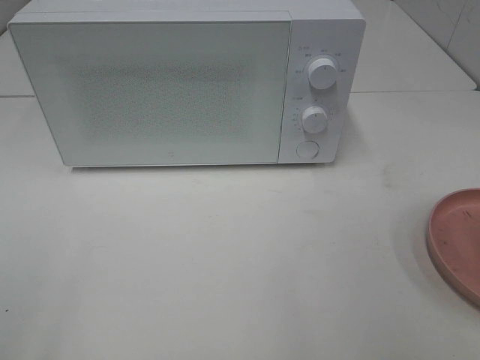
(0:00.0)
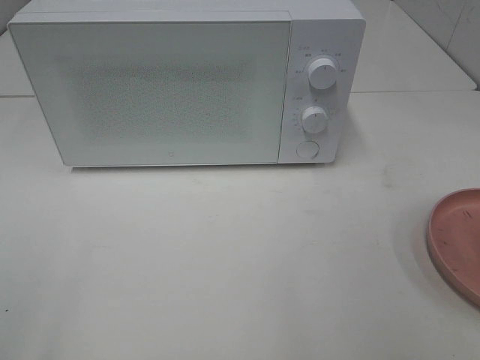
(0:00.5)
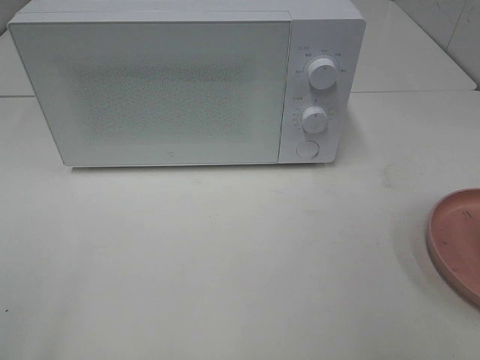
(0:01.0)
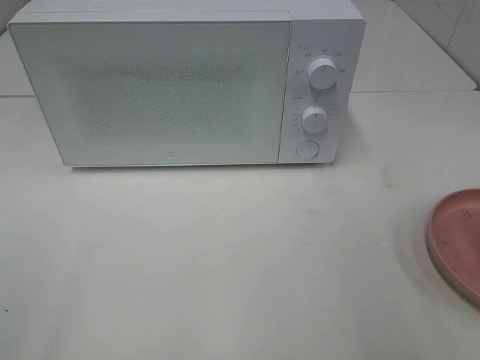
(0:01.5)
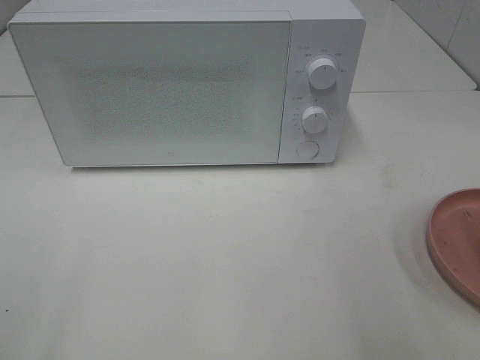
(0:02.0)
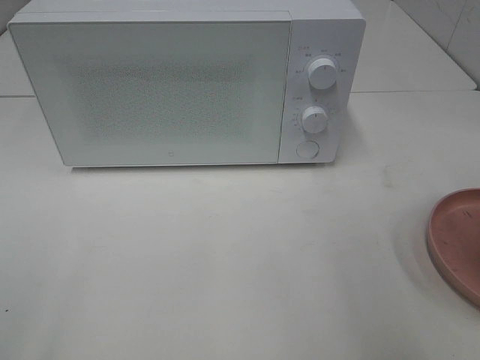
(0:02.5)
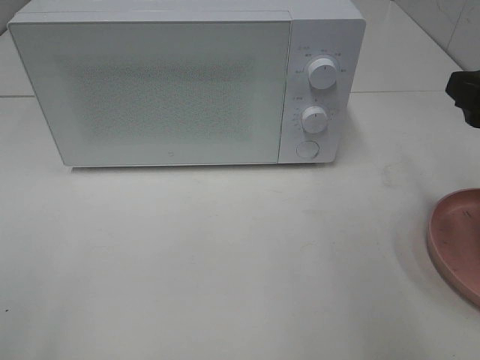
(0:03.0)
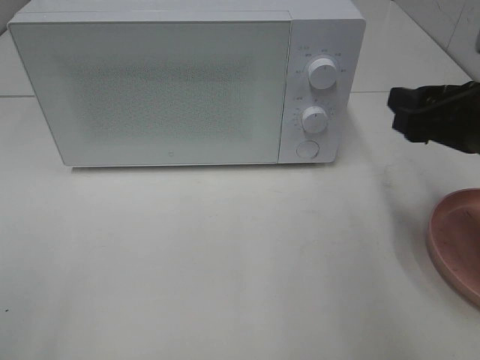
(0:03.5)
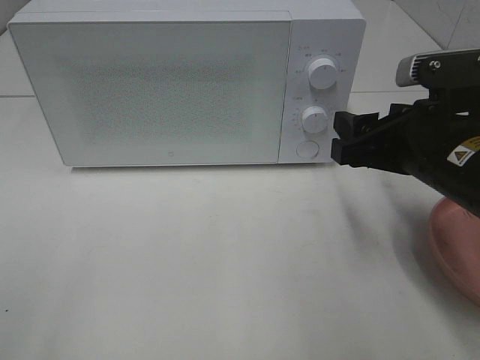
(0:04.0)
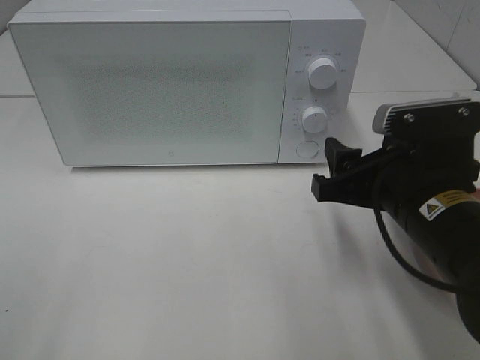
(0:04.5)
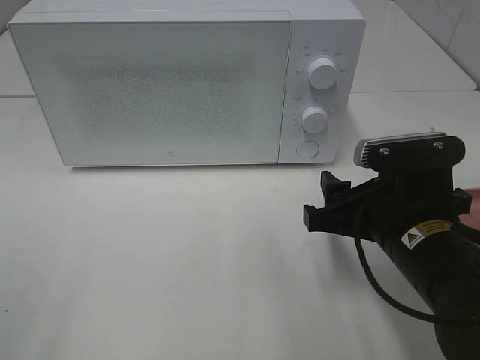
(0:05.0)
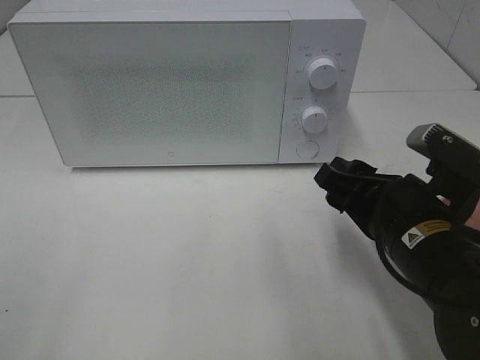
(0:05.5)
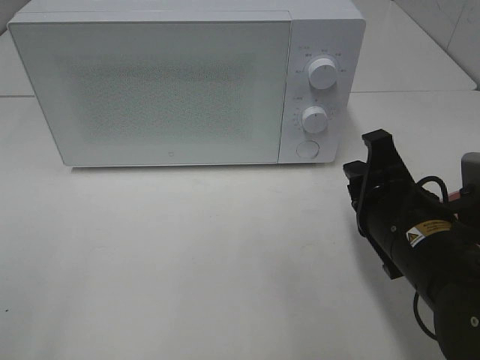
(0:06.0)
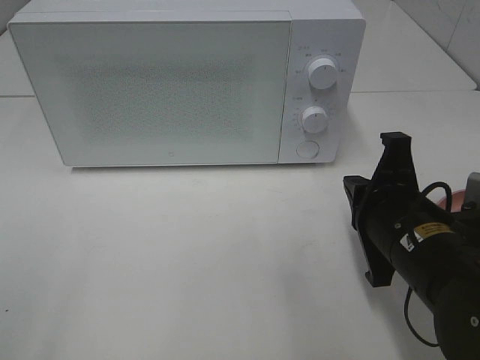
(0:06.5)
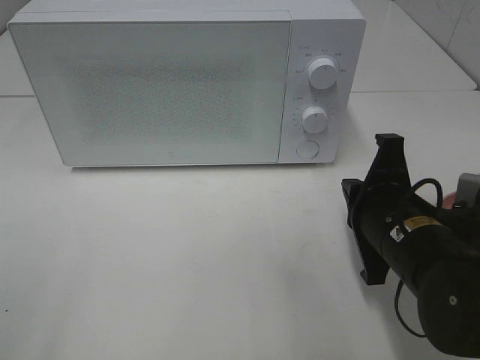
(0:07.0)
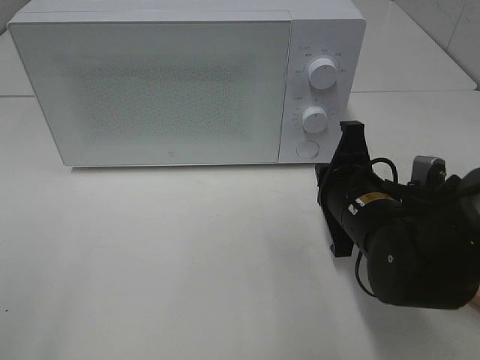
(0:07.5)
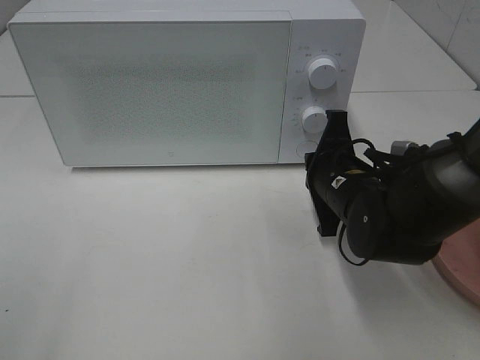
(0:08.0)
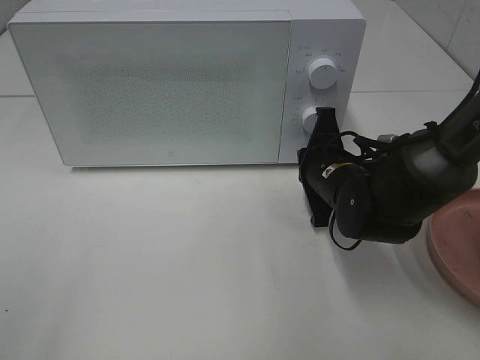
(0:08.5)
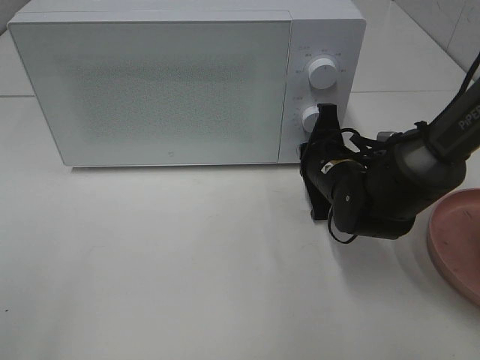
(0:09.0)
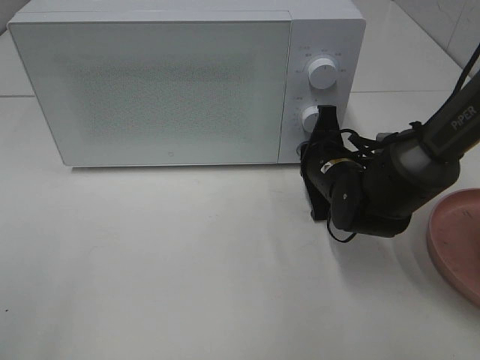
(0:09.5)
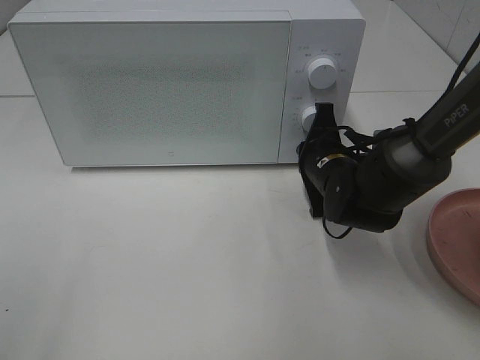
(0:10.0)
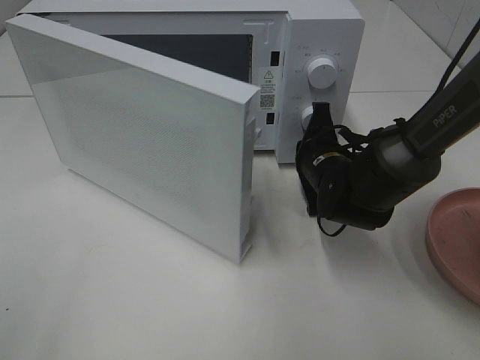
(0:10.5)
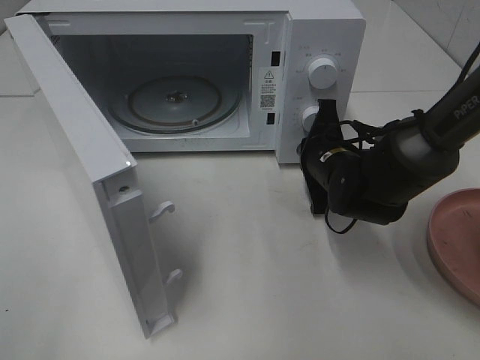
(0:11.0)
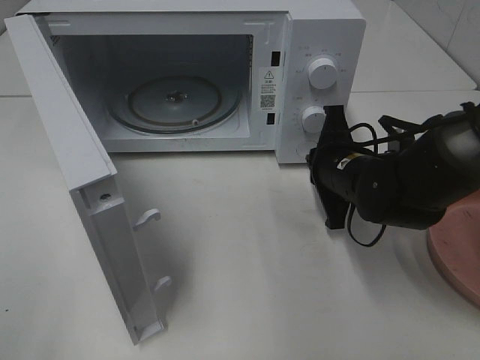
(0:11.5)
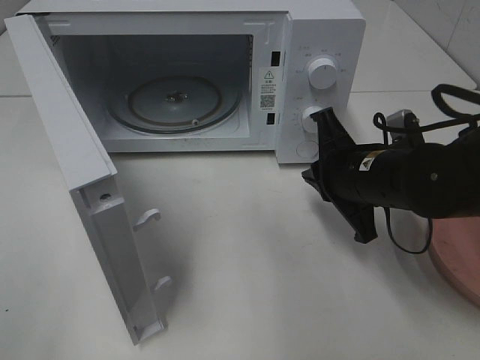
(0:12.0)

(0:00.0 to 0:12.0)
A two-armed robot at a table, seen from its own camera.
Task of the whole recording: Heat the burger.
Step, 0:00.0 - 0:11.0: Right hand: press the switch.
0:02.0 - 0:04.0: The right gripper heads forward, to the left and downward, covering about 20 cm.
0:04.0 - 0:06.0: The right gripper heads downward, covering about 5 cm, and closes up.
0:06.0 - 0:08.0: The right gripper shifts some 10 cm forward.
0:08.0 - 0:10.0: The right gripper heads forward, covering approximately 5 cm.
0:10.0 - 0:12.0: The right gripper shifts about 10 cm backward and upward.

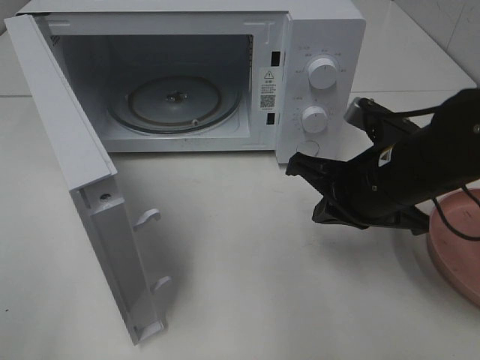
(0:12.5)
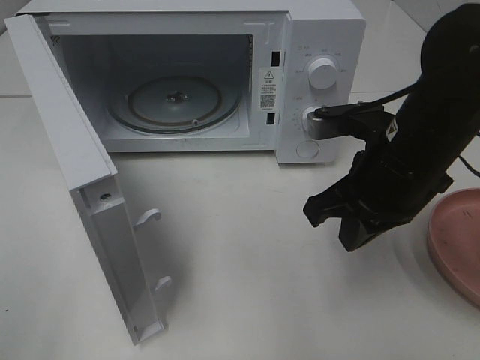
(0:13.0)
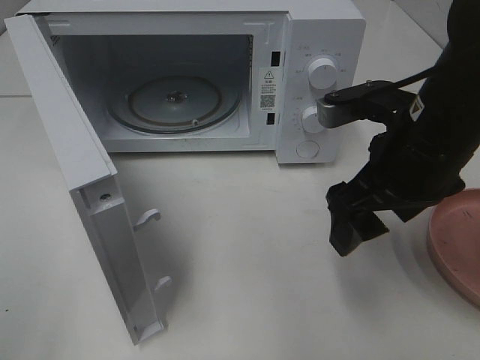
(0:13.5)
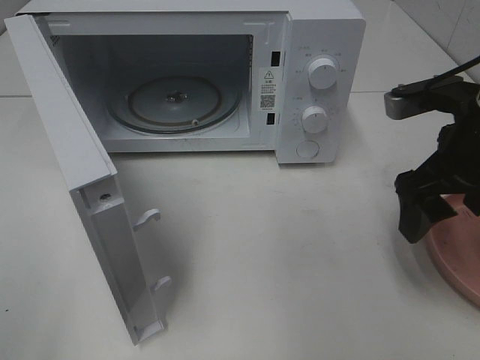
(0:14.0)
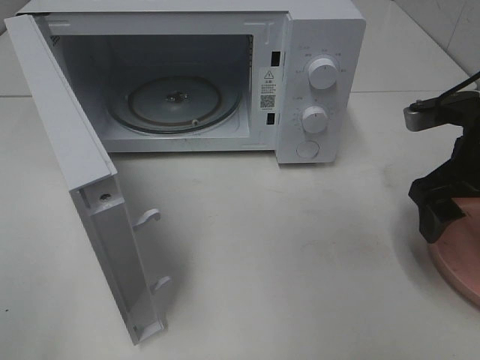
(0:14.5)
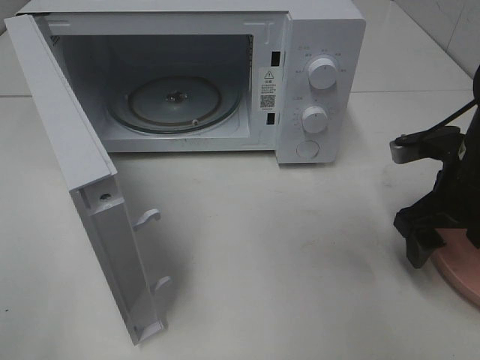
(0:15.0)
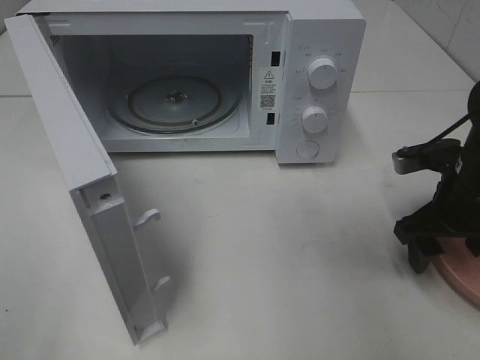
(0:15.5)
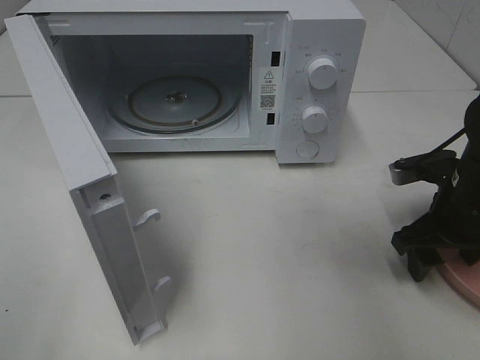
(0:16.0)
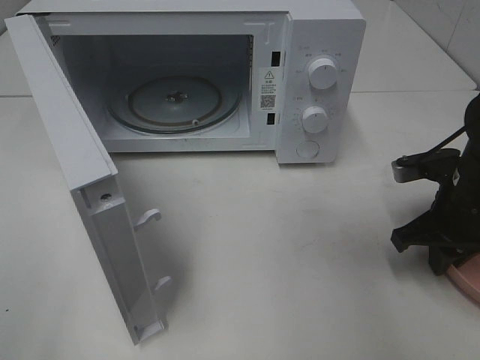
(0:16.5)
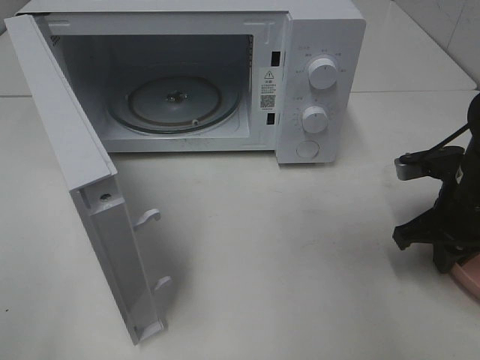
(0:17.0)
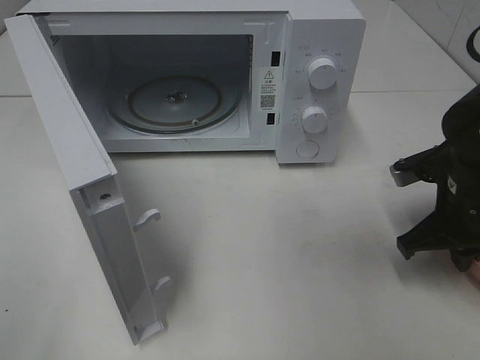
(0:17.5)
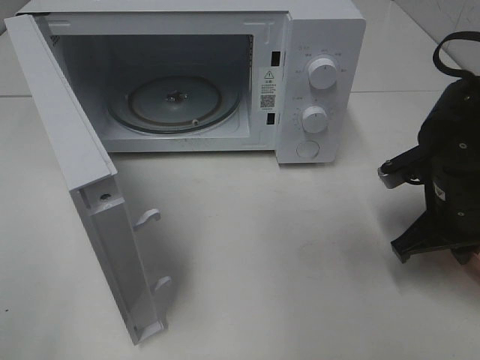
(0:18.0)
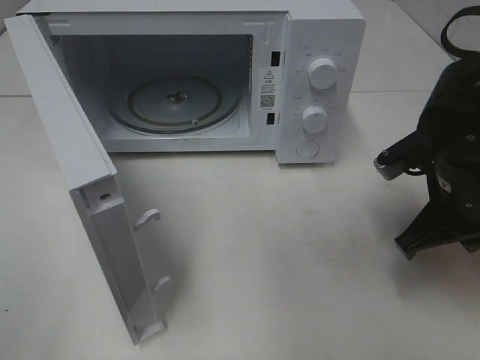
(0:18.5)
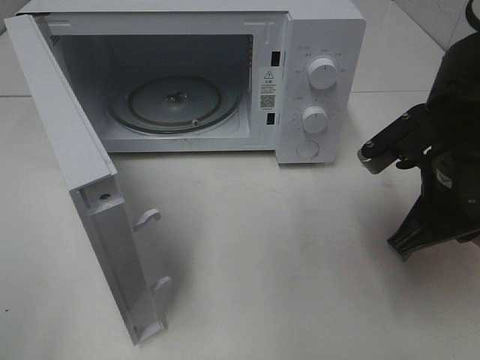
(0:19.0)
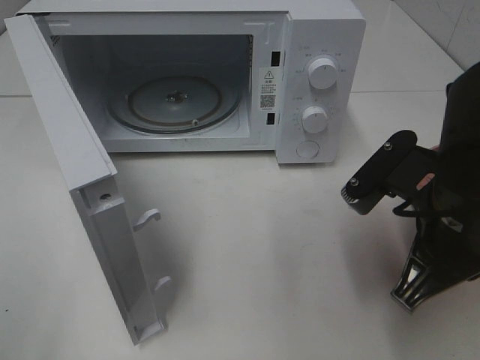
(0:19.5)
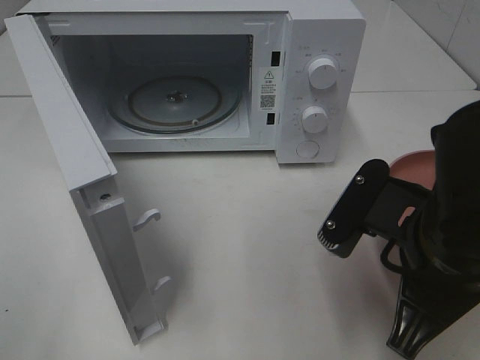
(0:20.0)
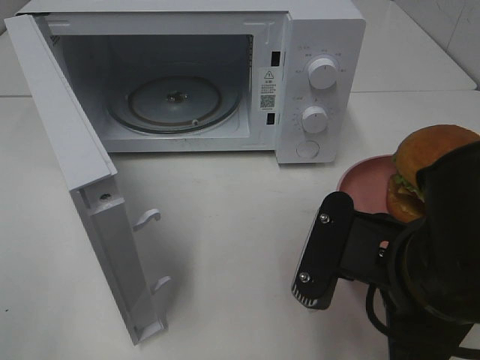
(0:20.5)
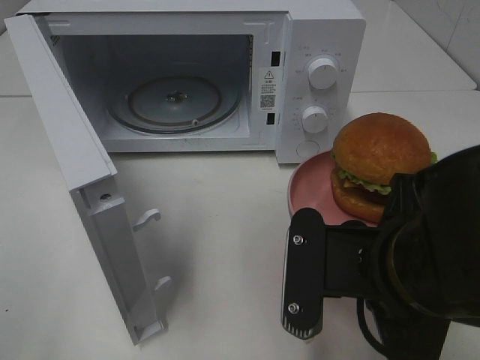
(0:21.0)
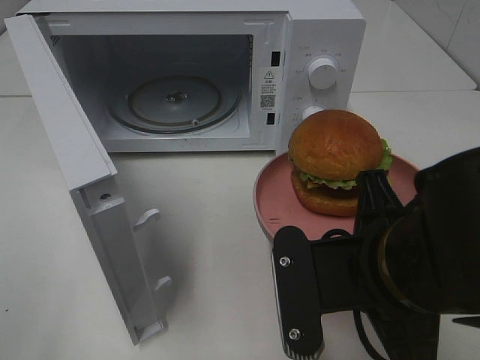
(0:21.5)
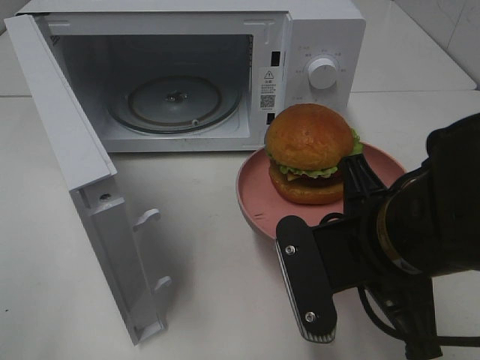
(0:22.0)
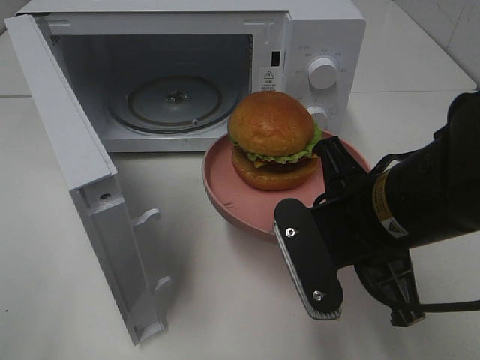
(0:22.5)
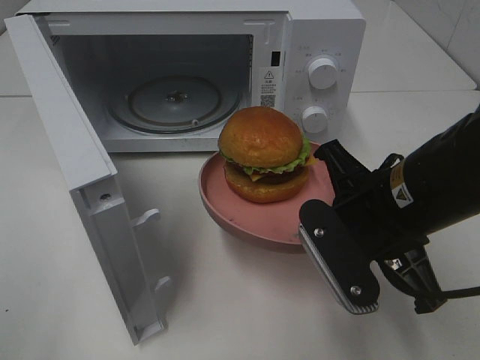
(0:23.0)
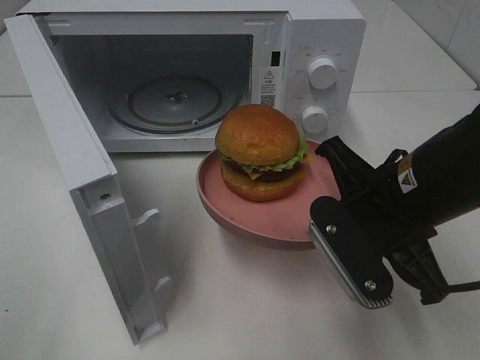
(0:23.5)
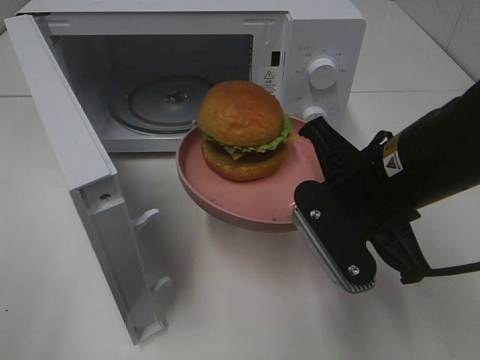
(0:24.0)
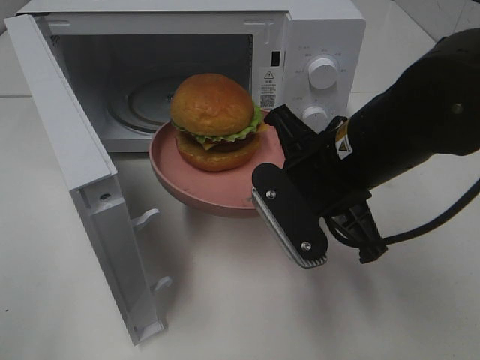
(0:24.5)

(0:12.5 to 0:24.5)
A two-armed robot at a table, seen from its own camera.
Task of the whole recording: Heat the burger.
Step, 0:12.5 - 0:17.0: Right hand: grab the plate with the hamburger.
0:12.5 - 0:14.5: The right gripper goes about 10 cm to the right, and opens its fingers.
0:14.5 - 0:16.5: The right gripper is displaced downward by some 10 cm, and closes.
0:16.5 - 0:18.5: The right gripper travels to the left by some 5 cm.
0:18.5 - 0:20.5: The right gripper is displaced backward and to the left by about 15 cm.
0:20.5 - 0:22.5: The right gripper heads forward, covering some 5 cm.
0:22.5 - 0:24.5: The right gripper travels forward by some 5 cm.

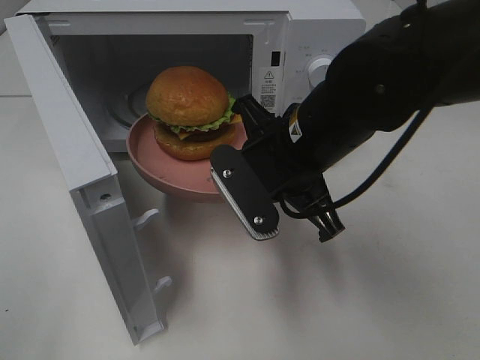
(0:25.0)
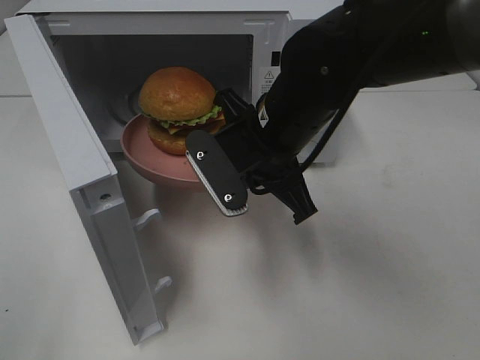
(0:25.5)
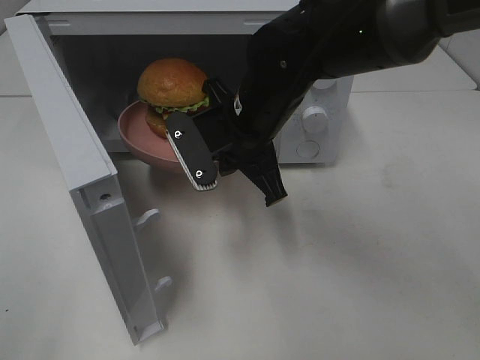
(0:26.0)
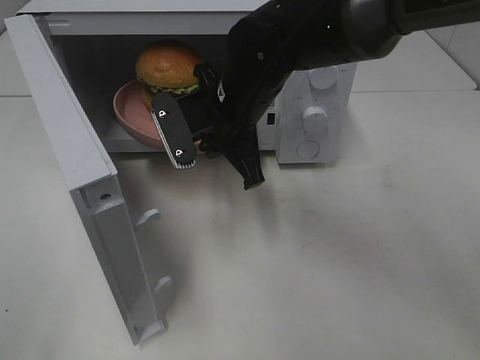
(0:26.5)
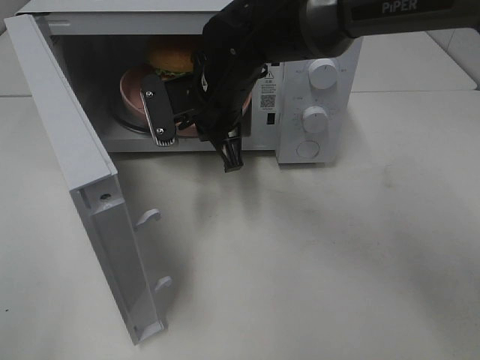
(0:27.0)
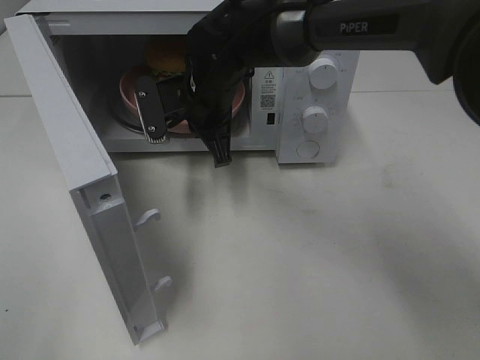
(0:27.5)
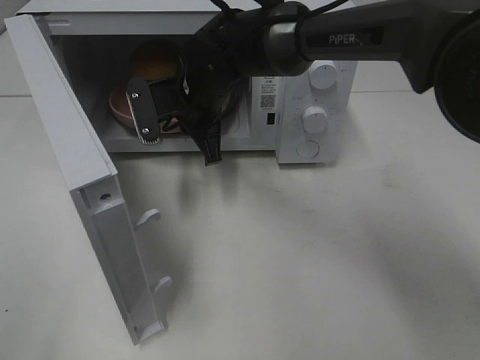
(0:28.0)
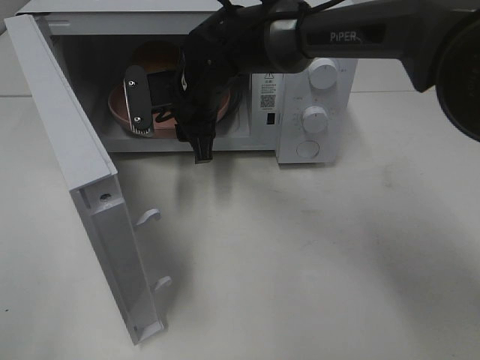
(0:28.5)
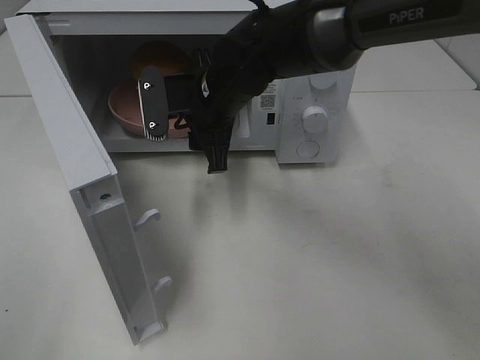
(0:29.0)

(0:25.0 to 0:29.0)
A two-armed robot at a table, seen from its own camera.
Task of the whole recording: Heat the burger.
Step, 0:25.0 - 0:28.5: Right hand: place the plate in the microwave.
0:25.0 - 0:27.0: The right gripper is displaced forward and to the left by some 15 cm.
0:27.0 - 0:29.0: The right gripper opens its fingers.
